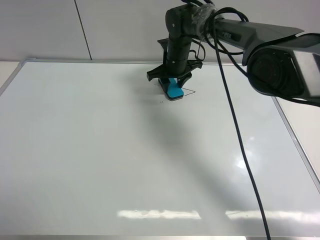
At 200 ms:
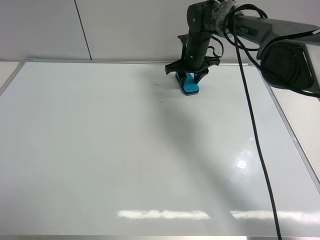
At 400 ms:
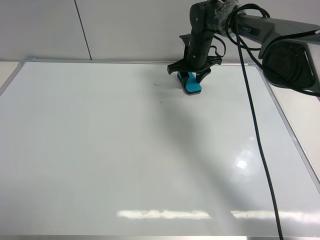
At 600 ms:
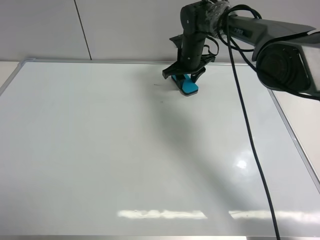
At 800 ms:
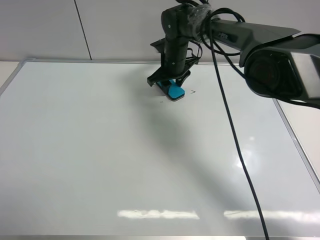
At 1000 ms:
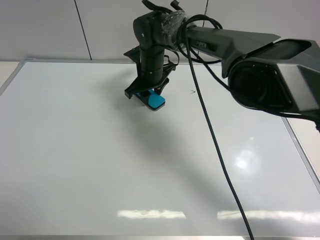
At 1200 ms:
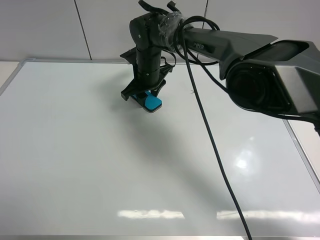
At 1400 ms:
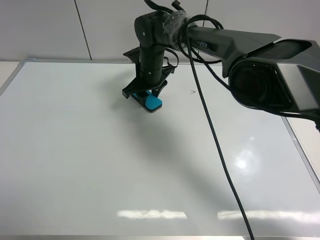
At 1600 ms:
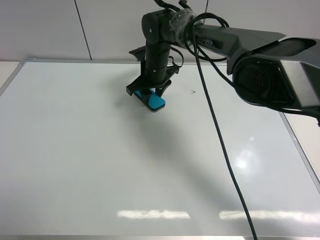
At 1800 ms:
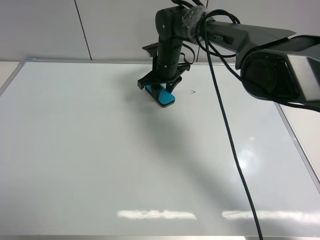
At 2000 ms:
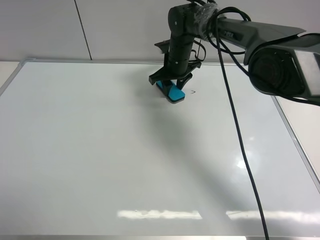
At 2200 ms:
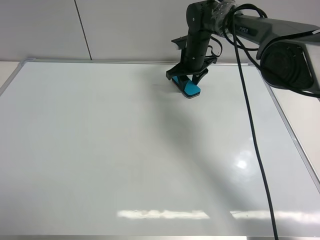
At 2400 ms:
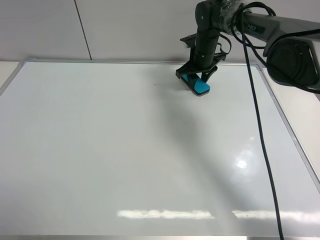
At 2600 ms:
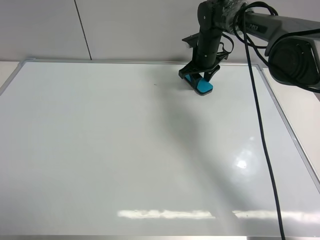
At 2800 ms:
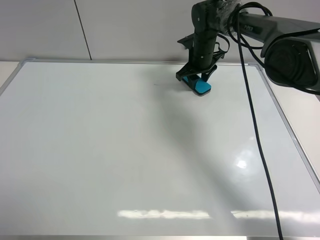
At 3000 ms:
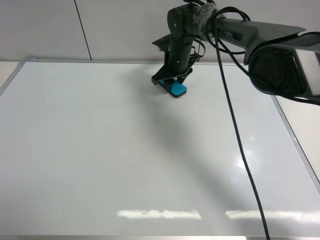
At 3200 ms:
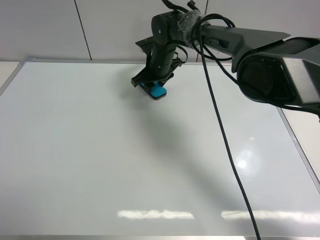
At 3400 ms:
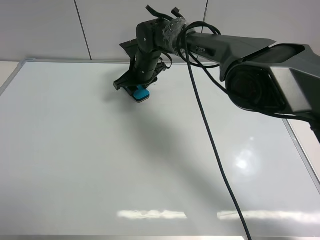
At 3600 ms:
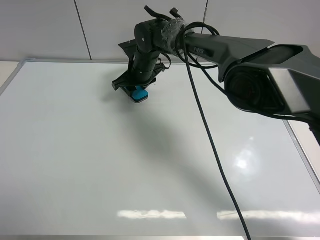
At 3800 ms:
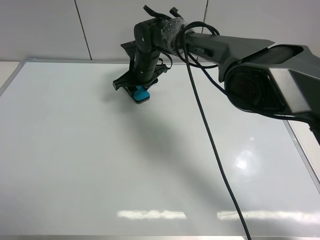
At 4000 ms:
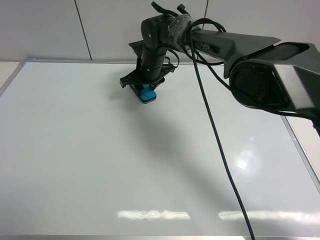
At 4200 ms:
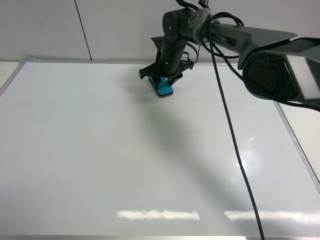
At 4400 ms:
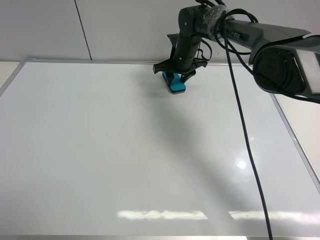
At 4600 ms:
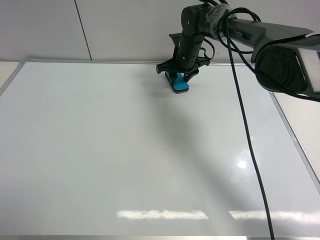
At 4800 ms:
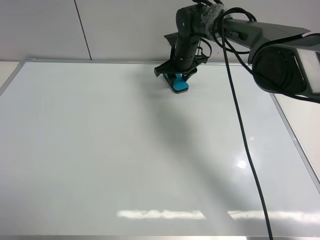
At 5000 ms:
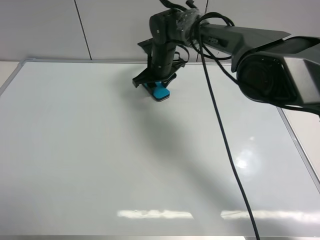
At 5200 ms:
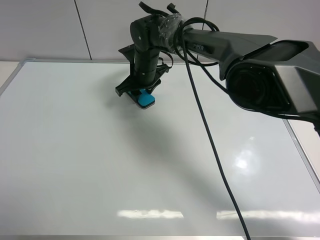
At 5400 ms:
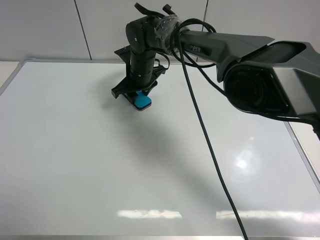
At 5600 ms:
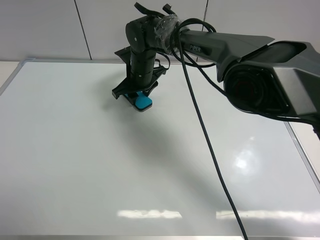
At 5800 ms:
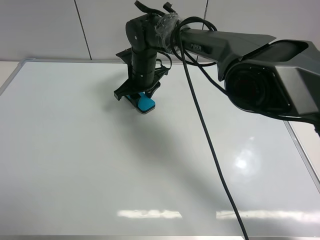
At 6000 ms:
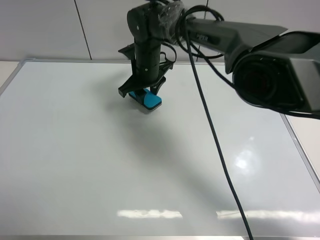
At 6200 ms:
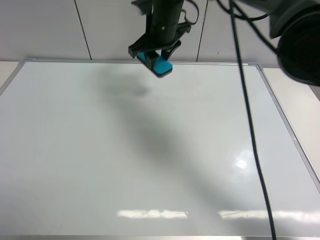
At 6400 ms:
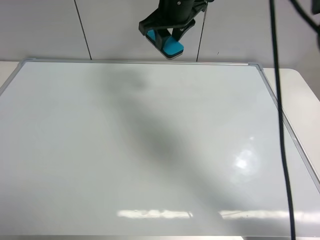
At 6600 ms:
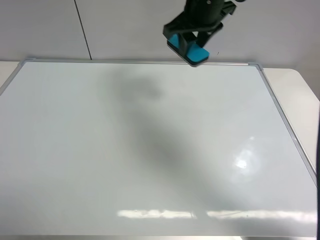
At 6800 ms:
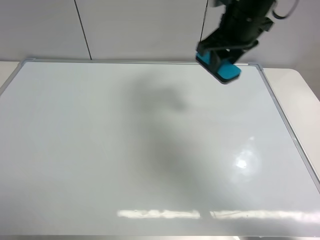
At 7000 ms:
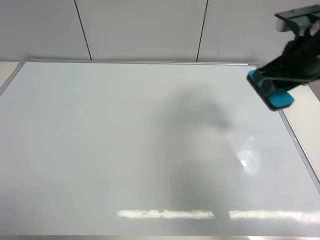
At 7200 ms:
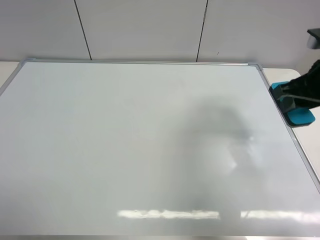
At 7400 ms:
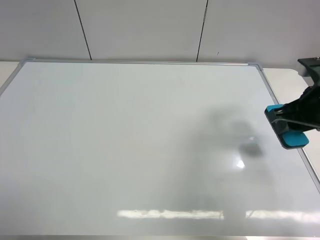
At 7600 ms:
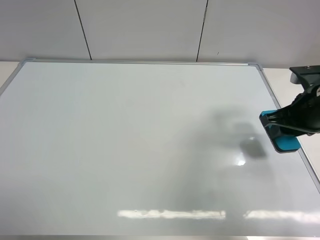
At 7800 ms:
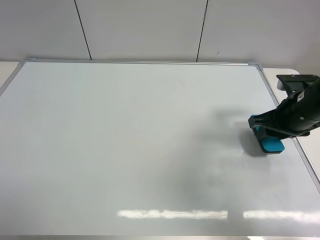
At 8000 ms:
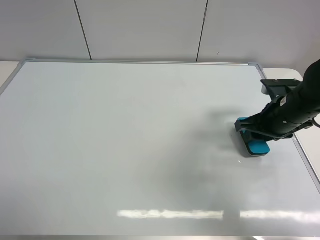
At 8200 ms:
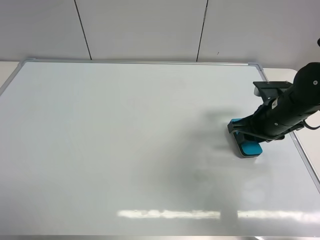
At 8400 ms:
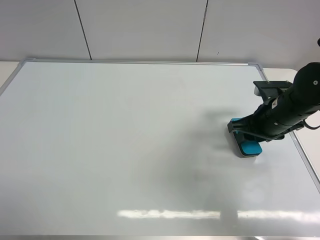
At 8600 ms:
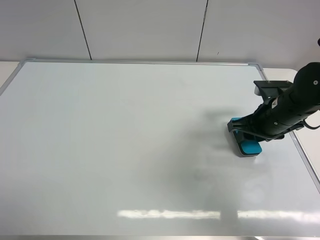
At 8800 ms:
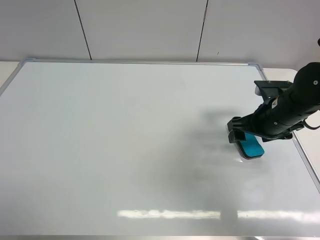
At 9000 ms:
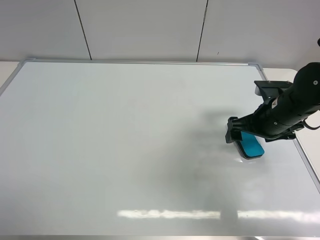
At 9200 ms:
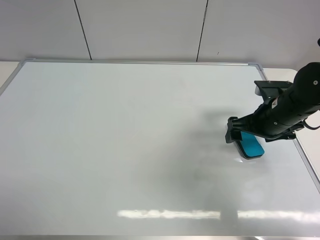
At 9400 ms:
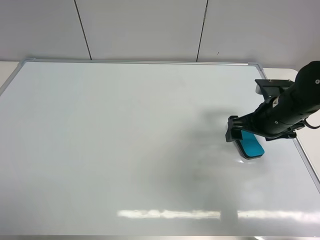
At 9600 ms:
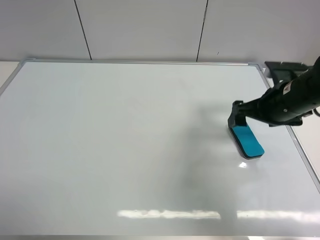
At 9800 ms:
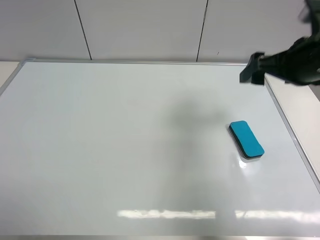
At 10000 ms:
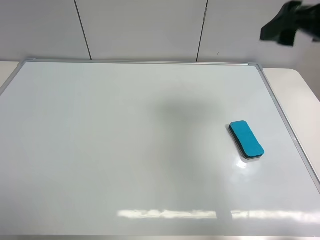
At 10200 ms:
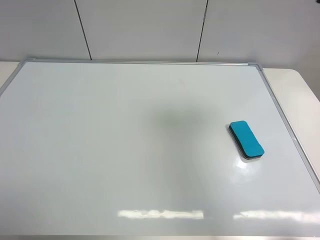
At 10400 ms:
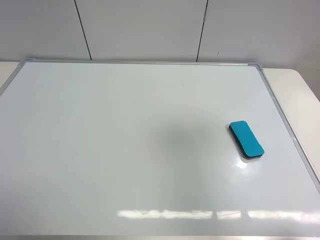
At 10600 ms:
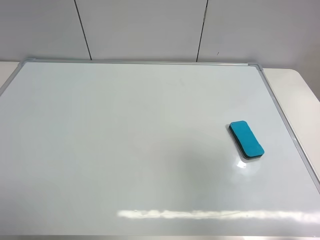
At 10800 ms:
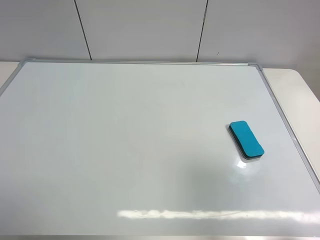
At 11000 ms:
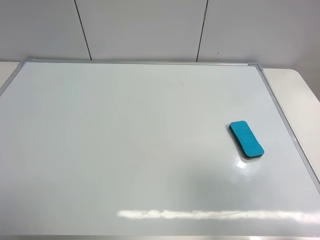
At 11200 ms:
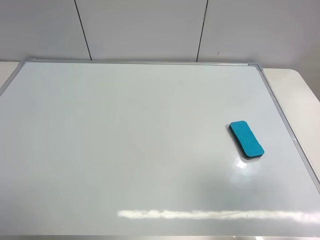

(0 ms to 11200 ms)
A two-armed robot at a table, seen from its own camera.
Task of the whole recording: use the left gripper to place the eraser in the right, use the right gripper to pick up the eraser, wipe the notes on the whiteboard clean, and then put it down.
Step, 0 ms - 5600 ms: Wipe off the writing on the board with right gripper.
Step, 5800 ms - 8800 ms: Place the board eraser on the right side of board with right gripper.
0 ms - 1600 ms: The right gripper shifts some 5 cm to the left.
1600 ms - 3200 ms: The right gripper goes to the right and returns, some 15 cm each way.
3200 ms - 4800 ms: The right gripper heads to the right, covering about 5 cm.
4800 ms - 6400 ms: The right gripper heads upward and backward, covering roughly 20 cm.
6400 ms - 8000 ms: The right gripper moves to the right, downward and backward, roughly 30 cm.
8000 ms - 9600 ms: The right gripper opens up.
9600 ms - 11200 ms: The right gripper heads backward and upward, covering approximately 30 cm.

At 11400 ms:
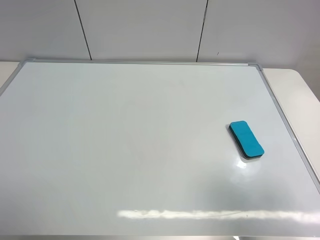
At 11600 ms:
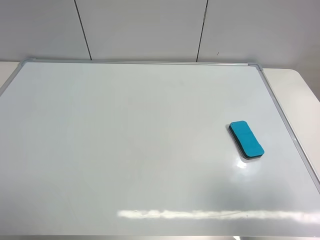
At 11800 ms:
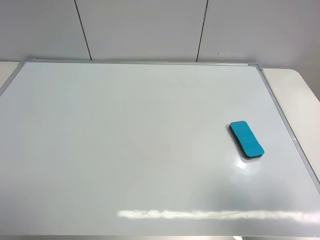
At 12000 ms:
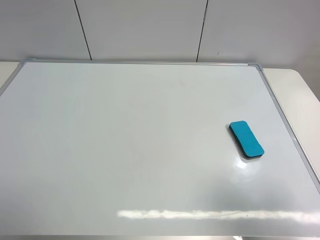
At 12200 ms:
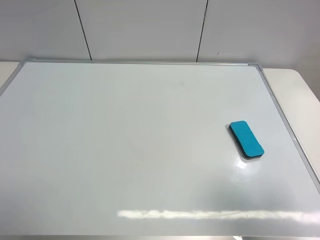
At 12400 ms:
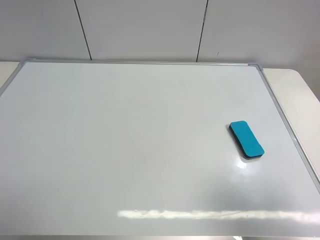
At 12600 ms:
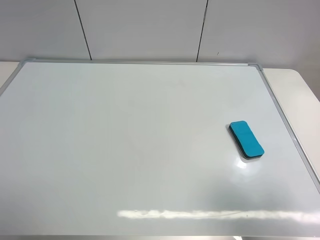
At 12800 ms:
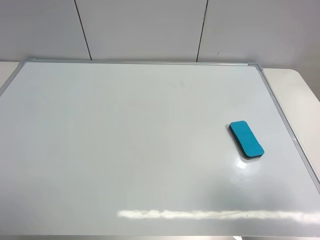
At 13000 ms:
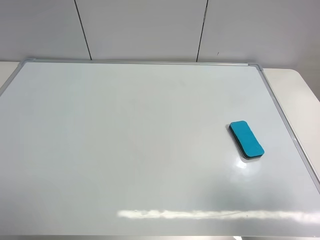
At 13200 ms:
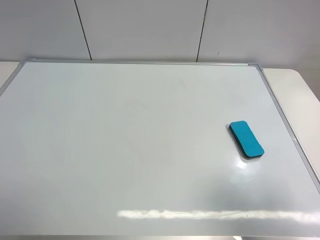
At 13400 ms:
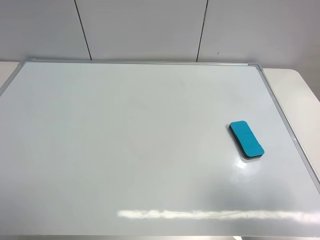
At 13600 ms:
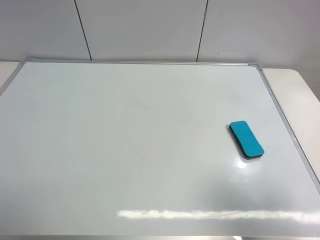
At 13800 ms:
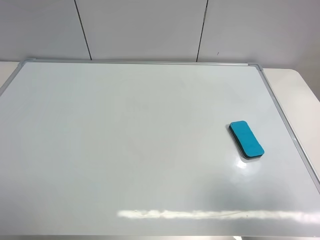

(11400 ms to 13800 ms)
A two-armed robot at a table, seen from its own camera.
Task of the whole recording: use the left gripper to place the eraser in the right, use the right gripper to pick up the eraser, wipe the notes on the whiteboard clean, and then put it down.
11400 ms - 12600 ms: The two grippers keep their place.
12600 ms - 13800 ms: The two grippers keep their place.
